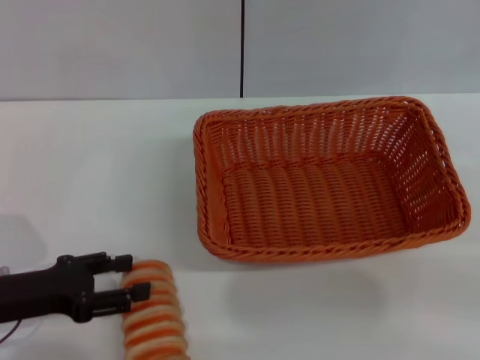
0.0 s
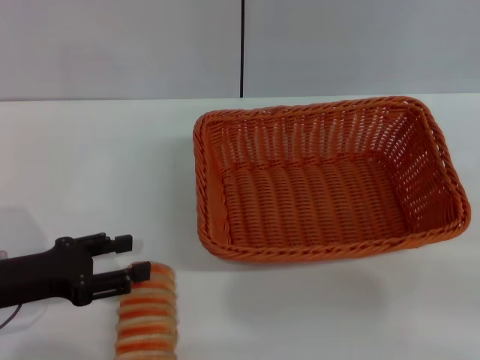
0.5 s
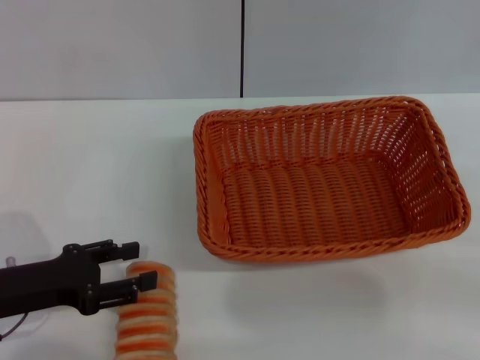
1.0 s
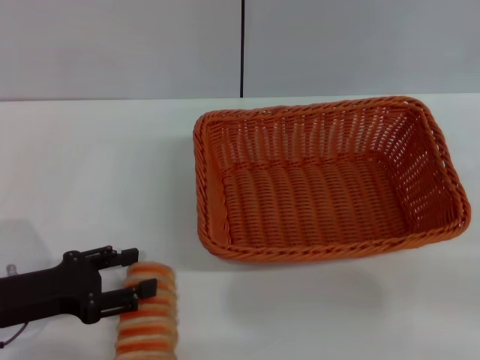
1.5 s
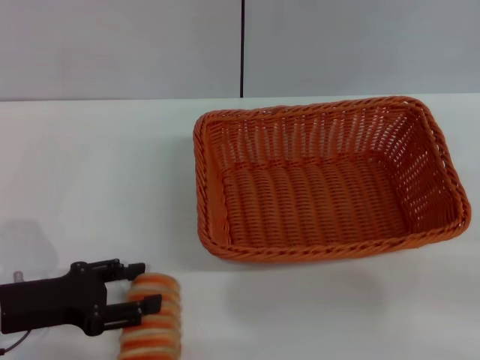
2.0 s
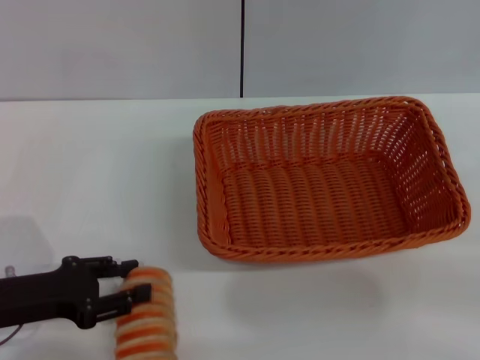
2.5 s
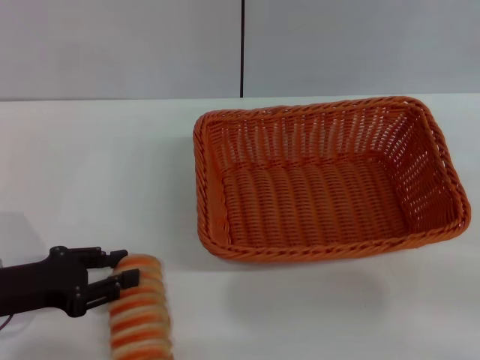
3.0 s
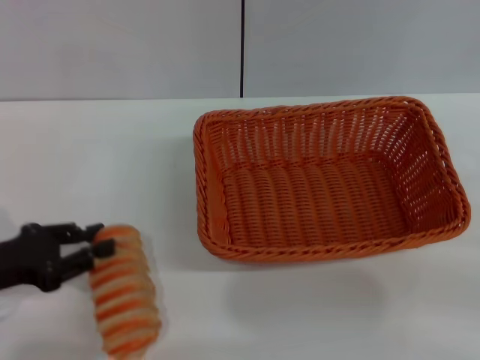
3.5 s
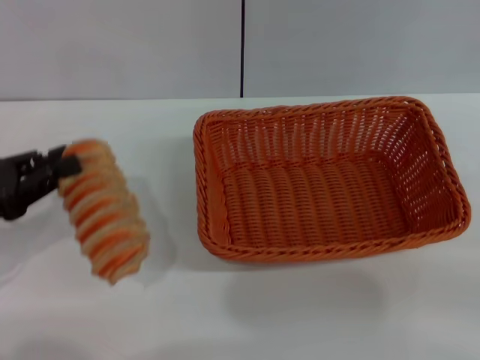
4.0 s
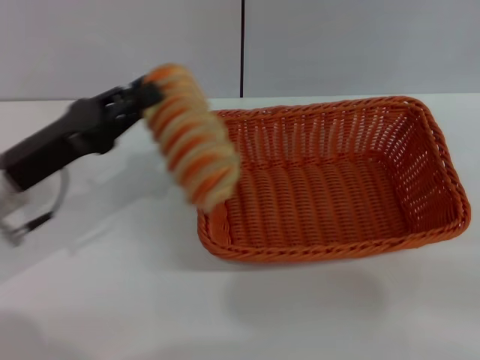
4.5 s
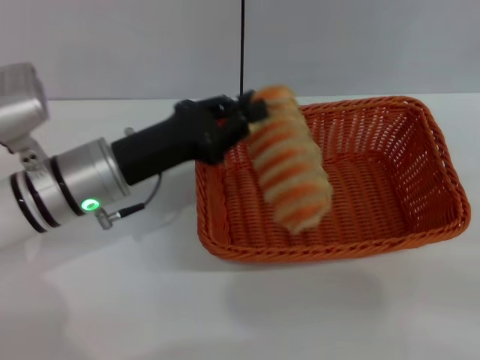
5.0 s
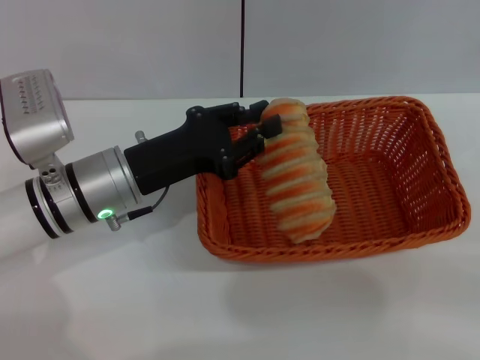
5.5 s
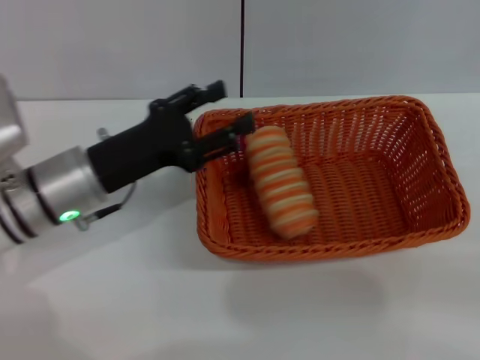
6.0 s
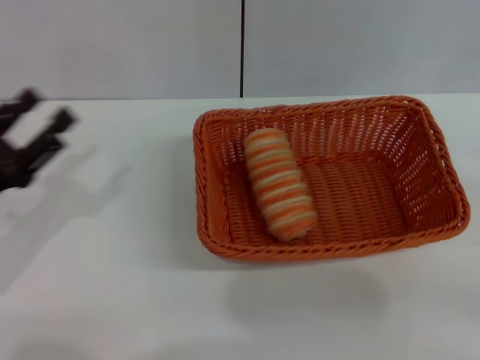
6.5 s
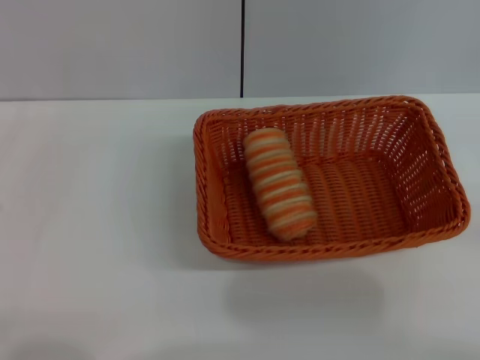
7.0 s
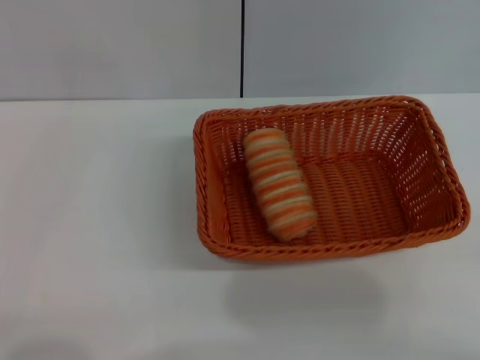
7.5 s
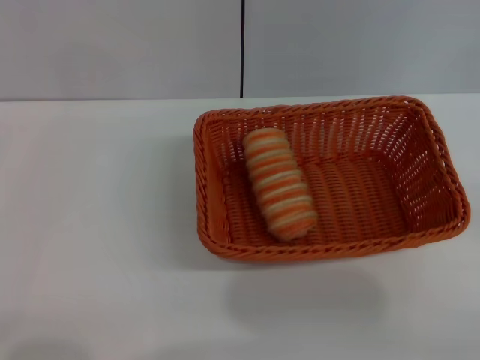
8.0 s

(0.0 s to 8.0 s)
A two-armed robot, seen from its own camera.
Step, 0.0 s - 3.5 s: Pick up the long bread with the left gripper.
Step, 4.0 s - 5.5 s: Place the long bread into the light basket with the left gripper.
0.0 s - 2.0 s: The grippers move only a little.
2.0 s - 4.0 s: The left gripper shifts about 5 cm upward, and closes up.
4.0 s - 6.0 s: The left gripper is displaced to the right and forward by approximately 15 cm, and opens up.
6.0 s - 8.0 s: The left gripper goes about 25 cm to the left and backward, and opens up; the right gripper moves downward, approximately 10 cm.

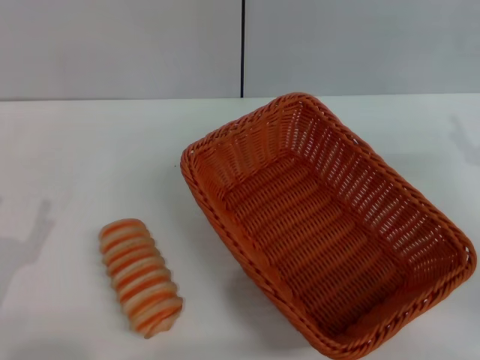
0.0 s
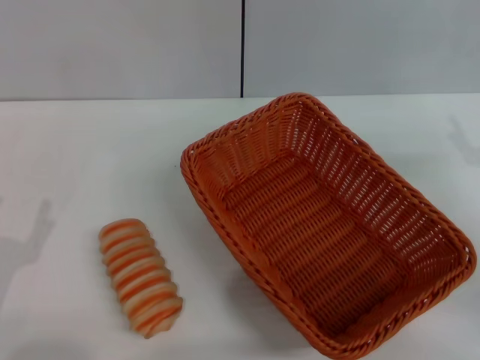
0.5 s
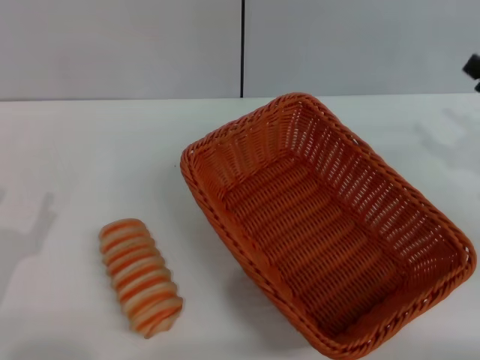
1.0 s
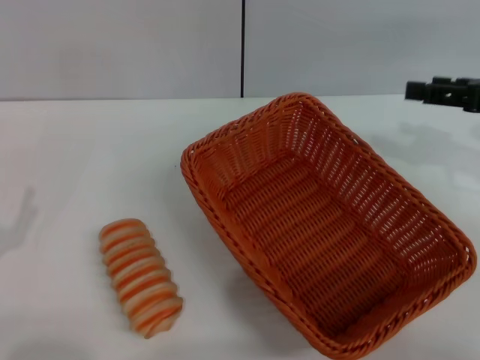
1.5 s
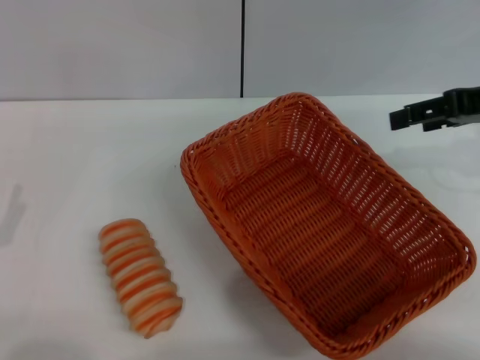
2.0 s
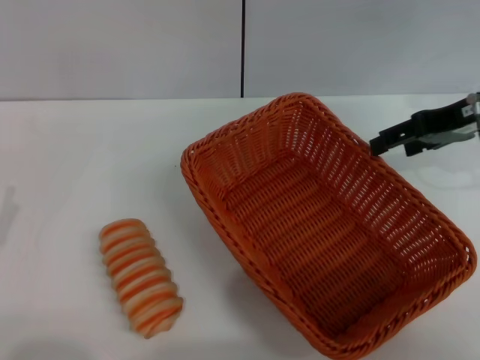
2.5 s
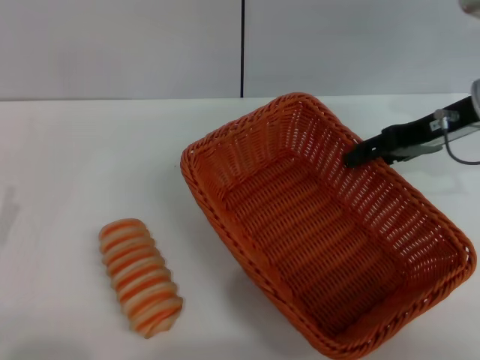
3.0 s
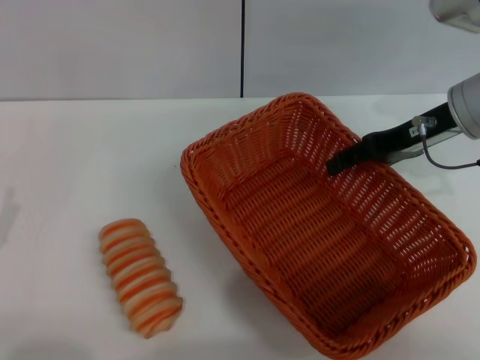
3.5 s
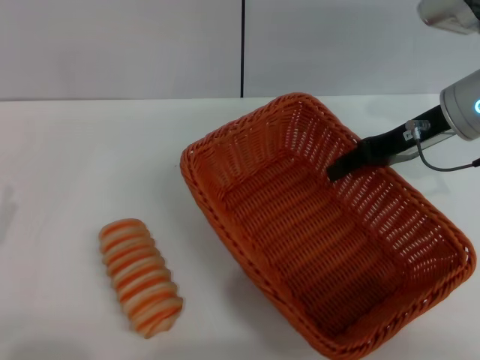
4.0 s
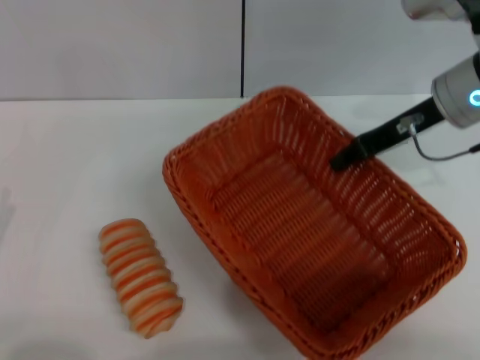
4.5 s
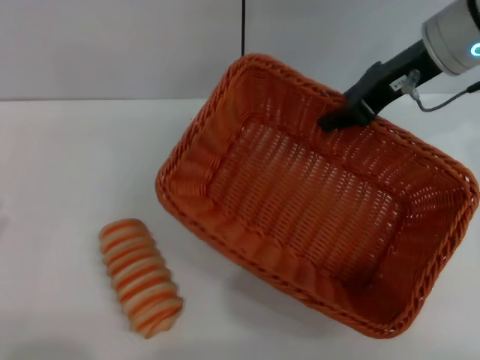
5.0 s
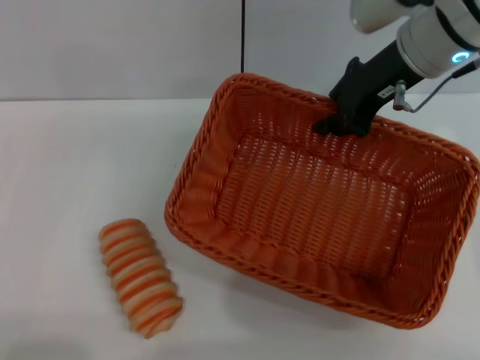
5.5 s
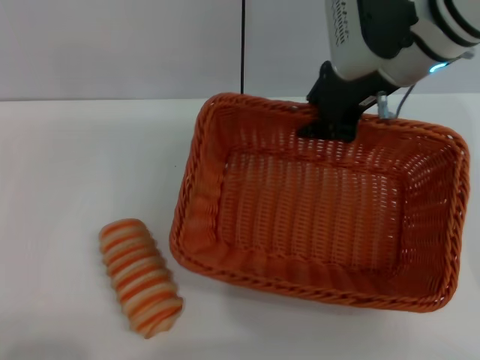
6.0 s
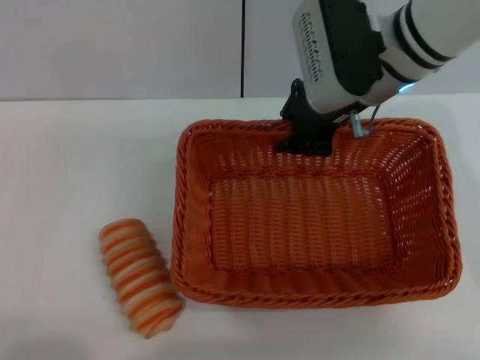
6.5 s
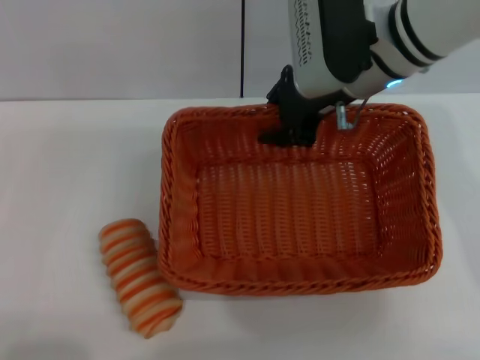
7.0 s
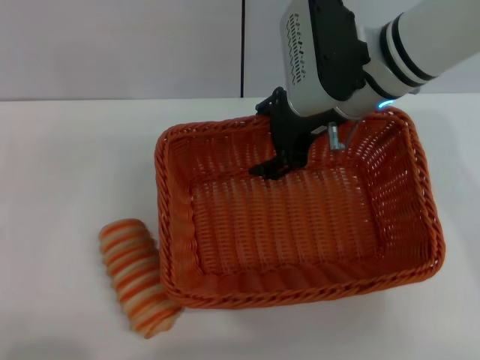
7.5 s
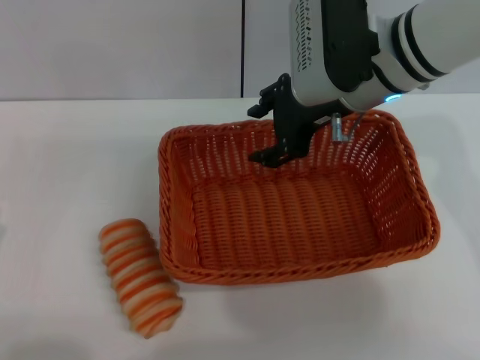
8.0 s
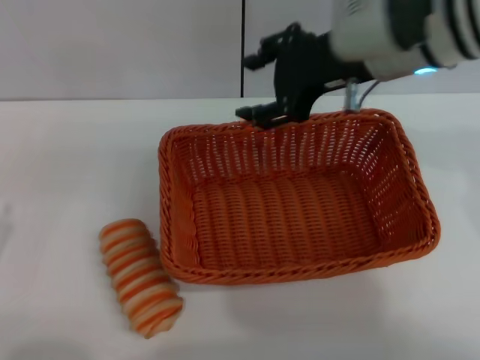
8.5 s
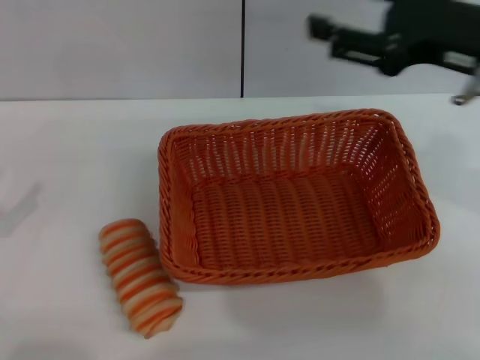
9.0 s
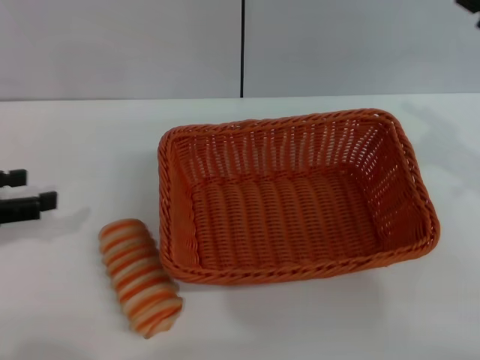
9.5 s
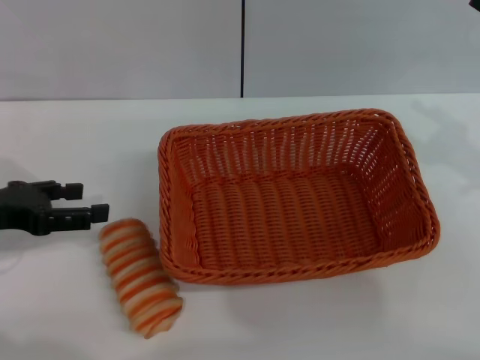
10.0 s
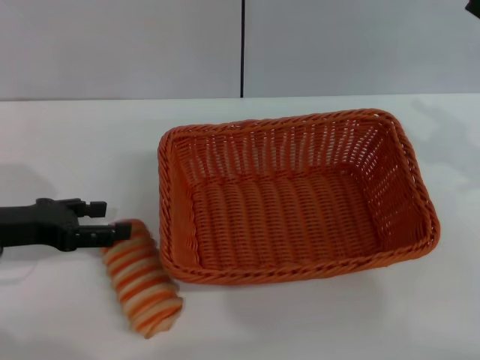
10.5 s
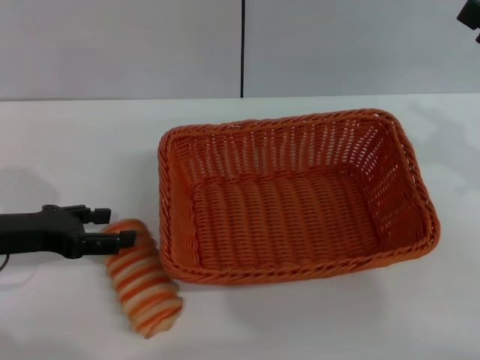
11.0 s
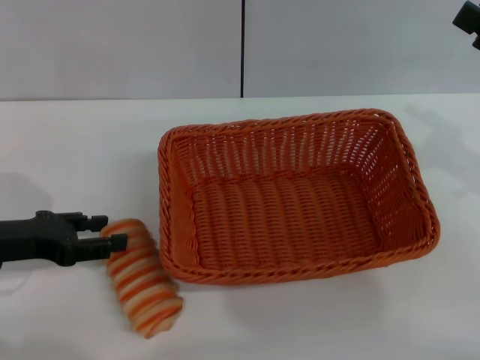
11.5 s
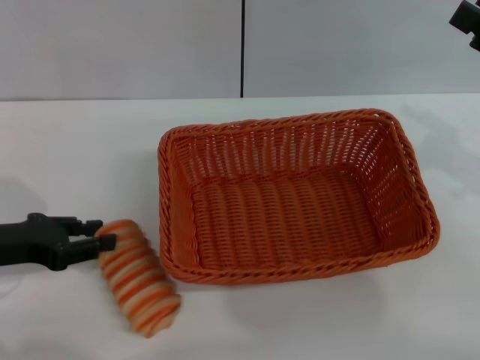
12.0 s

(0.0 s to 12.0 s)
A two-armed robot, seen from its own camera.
Step, 0.0 s - 4.5 s: Pick up the light basket with the right gripper.
Step, 5.0 s - 8.0 s: Place the light basket in the center of view with the right gripper.
0.0 s - 2.0 s: The right gripper heads upward and forward, covering roughly 15 cm.
2.0 s - 4.0 s: The right gripper shifts some 10 cm to the left and downward.
4.0 s - 6.0 s: The right gripper heads to the left and upward, covering roughly 10 cm, and closes.
6.0 s - 8.0 s: The right gripper opens its fingers.
8.0 s - 10.0 s: The left gripper is displaced forward and upward by about 20 cm, while the right gripper is displaced to the right and backward by some 25 cm.
10.0 s - 12.0 s: The left gripper closes up.

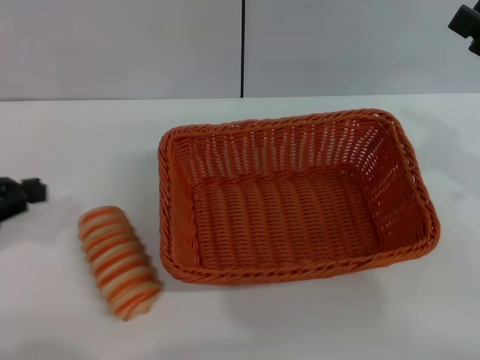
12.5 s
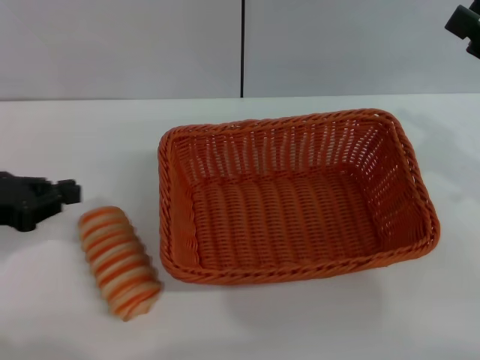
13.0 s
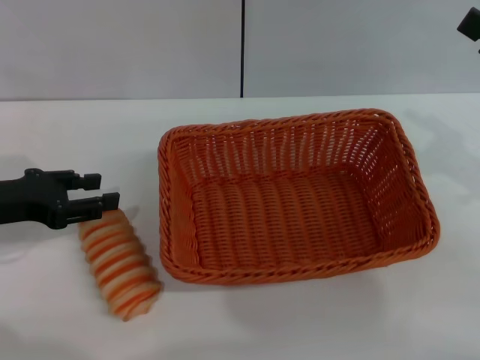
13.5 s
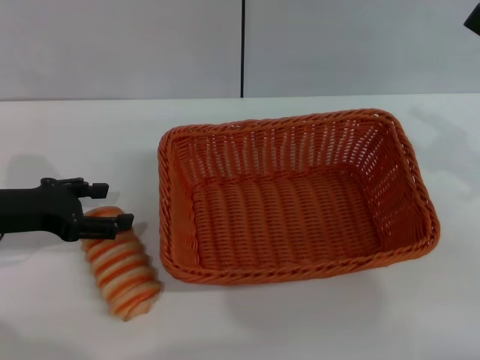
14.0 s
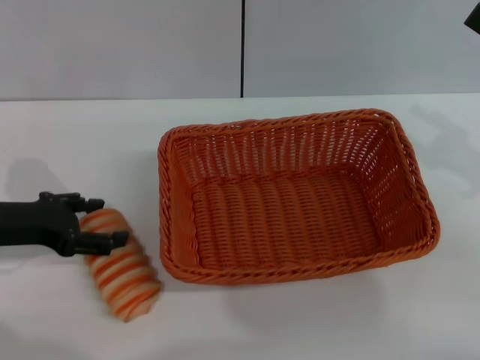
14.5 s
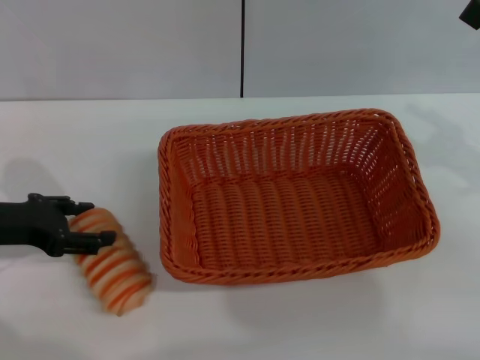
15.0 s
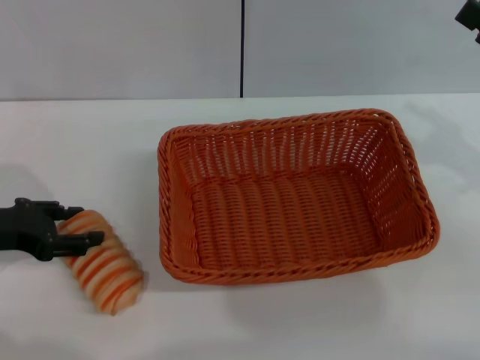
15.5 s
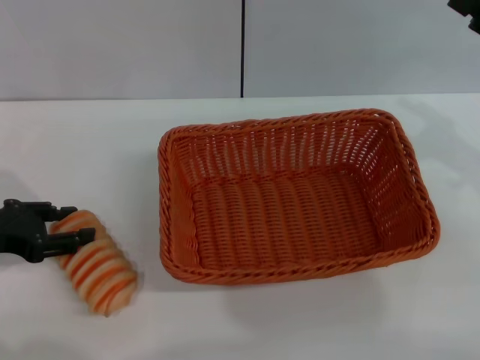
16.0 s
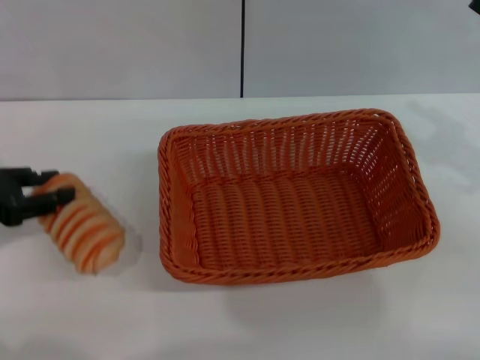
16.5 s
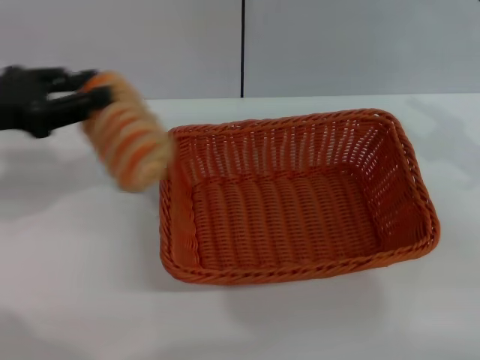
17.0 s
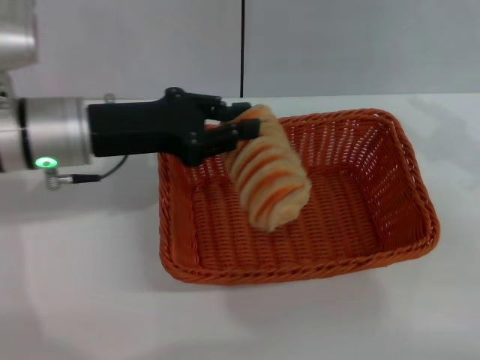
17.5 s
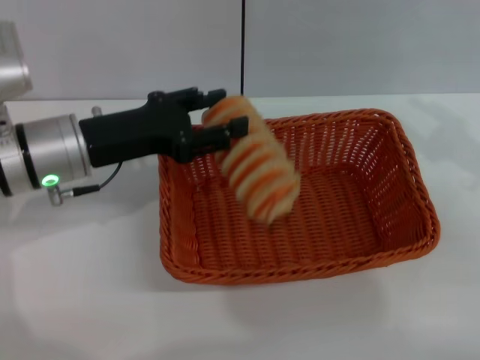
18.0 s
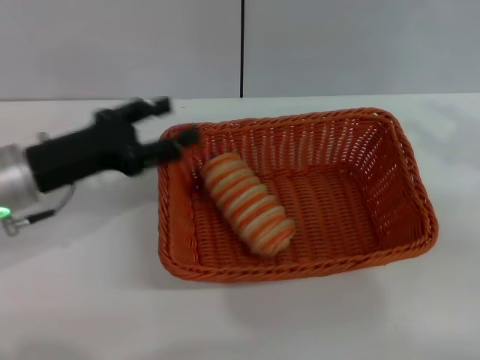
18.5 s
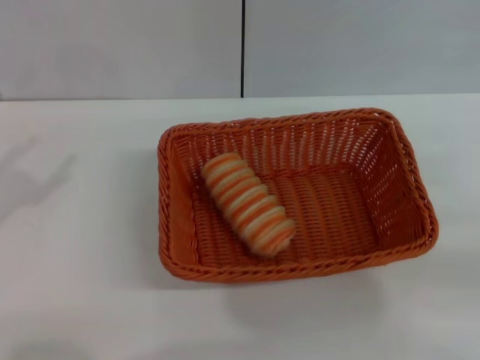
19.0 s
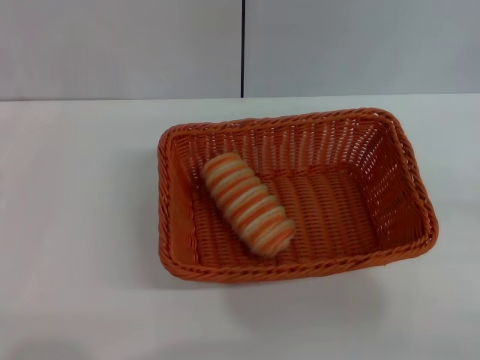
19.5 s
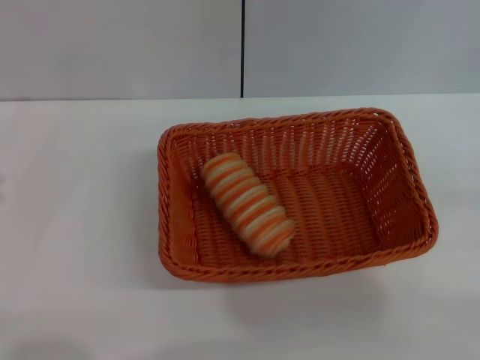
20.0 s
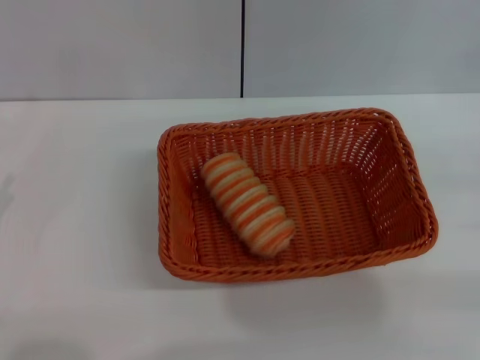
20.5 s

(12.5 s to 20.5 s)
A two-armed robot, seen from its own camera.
Step, 12.5 s - 16.5 s: Pick up the long bread with the left gripper.
Step, 17.0 s - 18.0 s: Place the long bread into the light basket with the left gripper.
12.5 s - 14.5 s: The left gripper moves to the right, about 5 cm, and opens its fingers.
14.5 s - 16.5 s: The left gripper closes its fingers.
16.5 s - 18.5 s: The left gripper travels to the right by some 10 cm, and opens up.
18.5 s - 20.5 s: The left gripper moves backward and to the left, some 20 cm.
